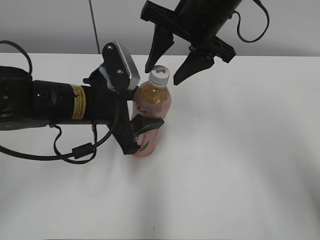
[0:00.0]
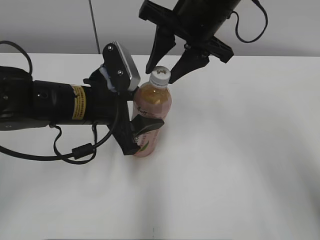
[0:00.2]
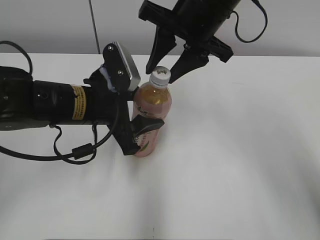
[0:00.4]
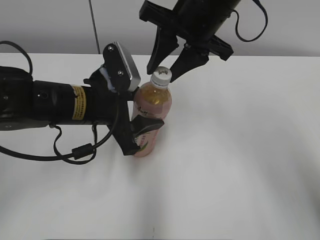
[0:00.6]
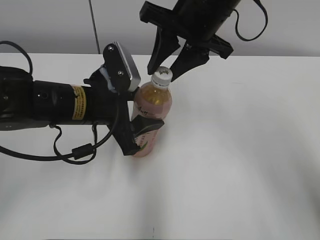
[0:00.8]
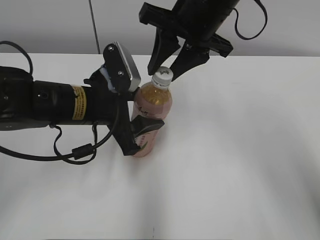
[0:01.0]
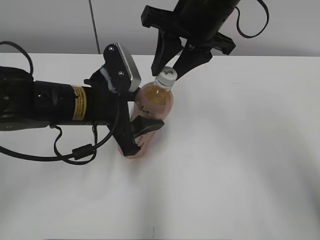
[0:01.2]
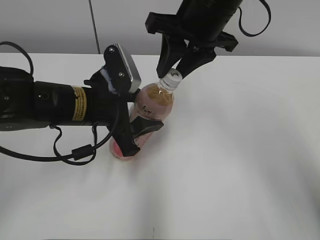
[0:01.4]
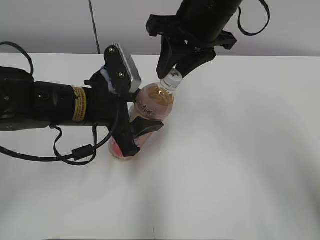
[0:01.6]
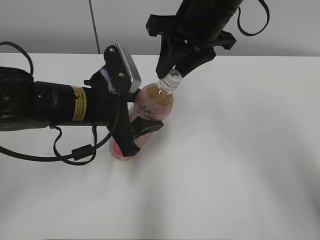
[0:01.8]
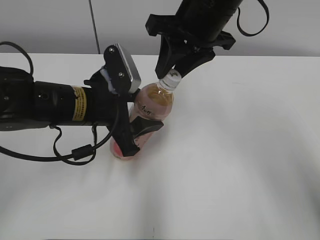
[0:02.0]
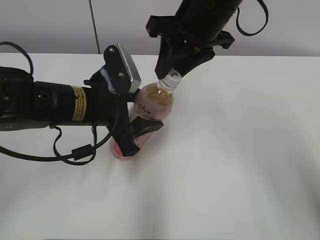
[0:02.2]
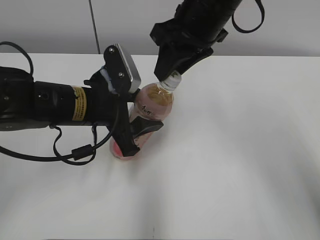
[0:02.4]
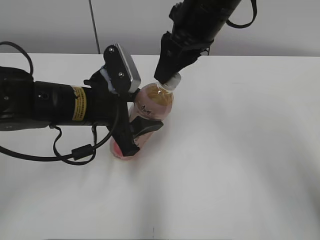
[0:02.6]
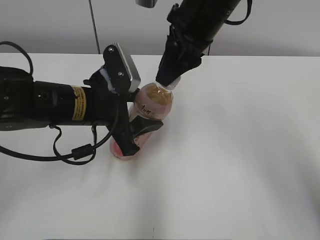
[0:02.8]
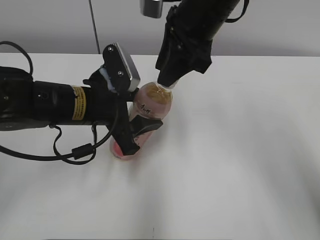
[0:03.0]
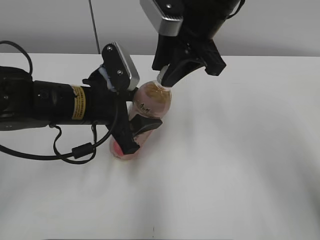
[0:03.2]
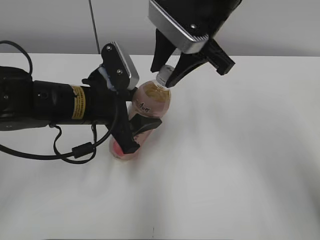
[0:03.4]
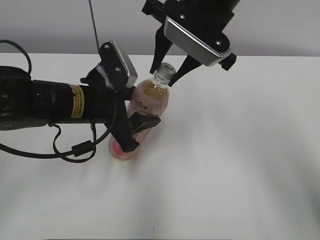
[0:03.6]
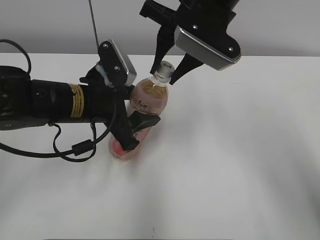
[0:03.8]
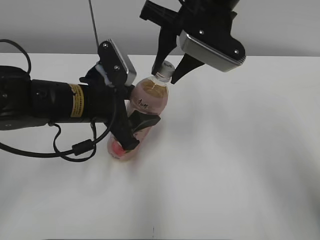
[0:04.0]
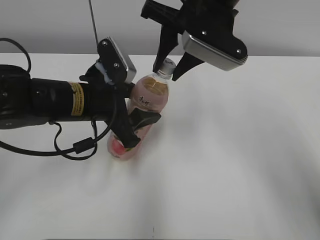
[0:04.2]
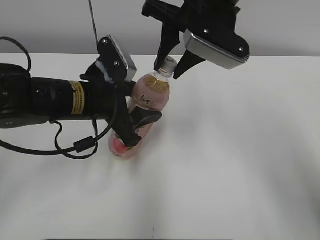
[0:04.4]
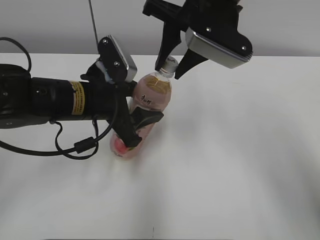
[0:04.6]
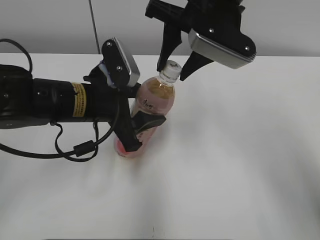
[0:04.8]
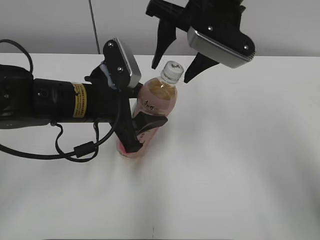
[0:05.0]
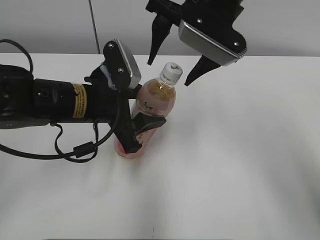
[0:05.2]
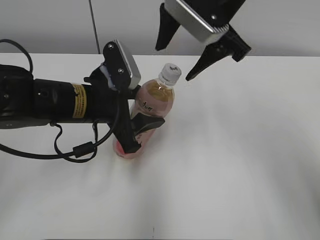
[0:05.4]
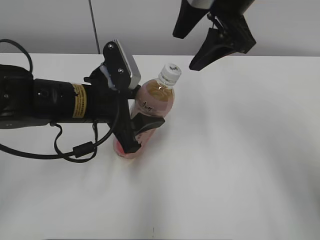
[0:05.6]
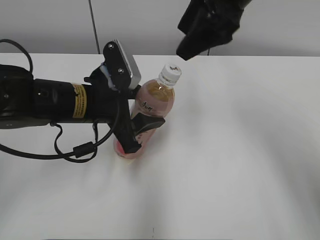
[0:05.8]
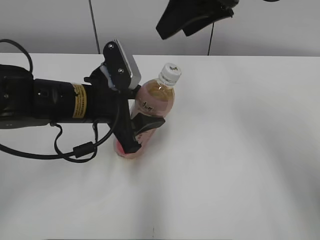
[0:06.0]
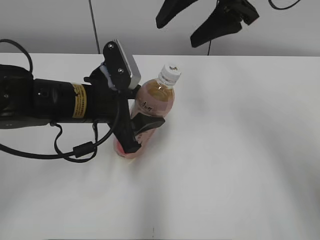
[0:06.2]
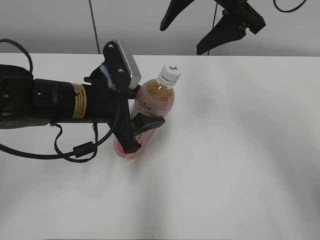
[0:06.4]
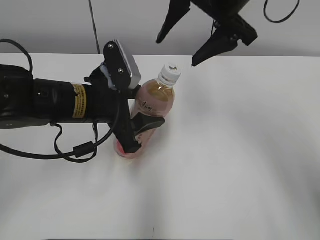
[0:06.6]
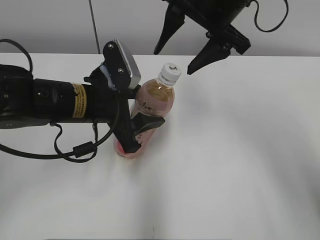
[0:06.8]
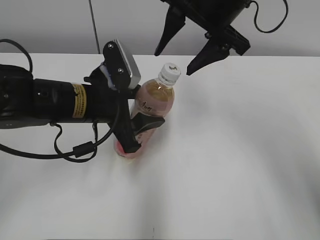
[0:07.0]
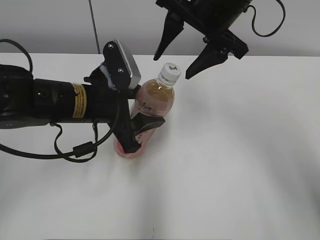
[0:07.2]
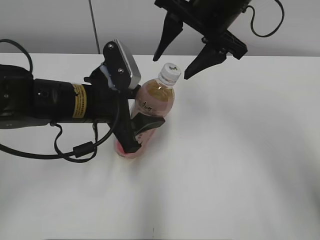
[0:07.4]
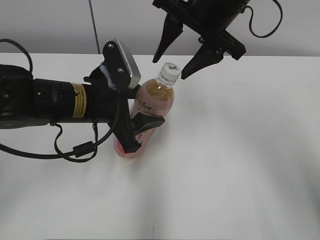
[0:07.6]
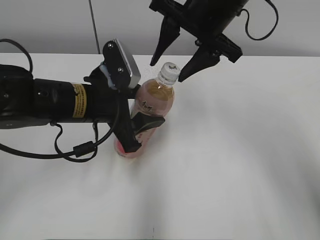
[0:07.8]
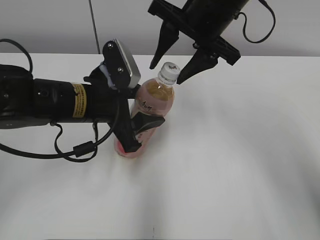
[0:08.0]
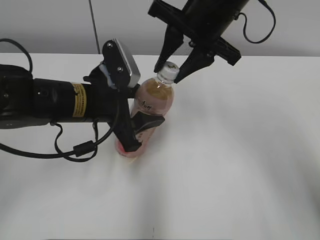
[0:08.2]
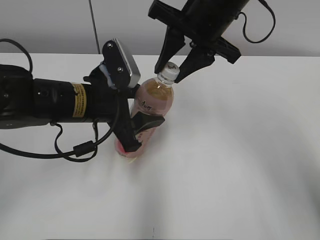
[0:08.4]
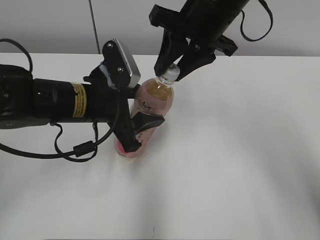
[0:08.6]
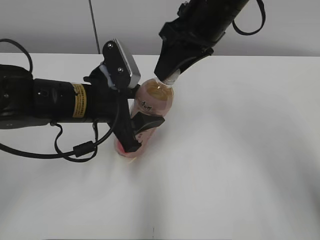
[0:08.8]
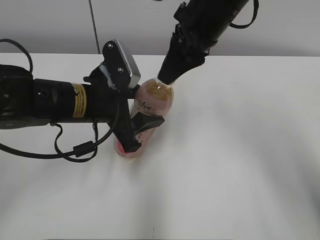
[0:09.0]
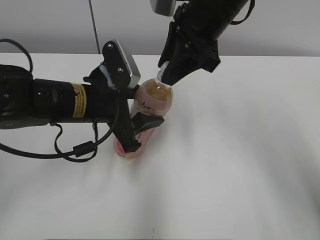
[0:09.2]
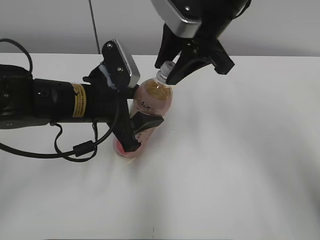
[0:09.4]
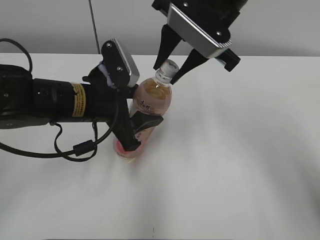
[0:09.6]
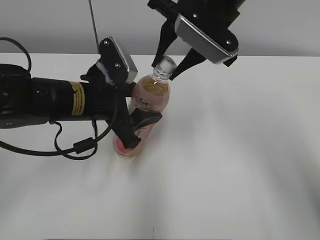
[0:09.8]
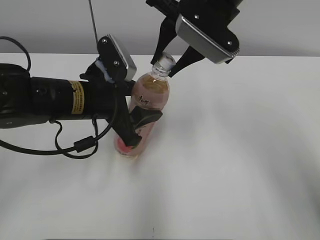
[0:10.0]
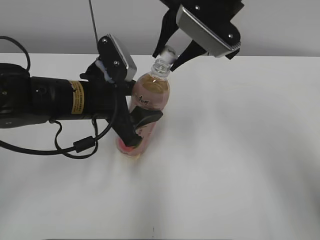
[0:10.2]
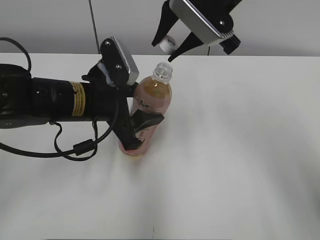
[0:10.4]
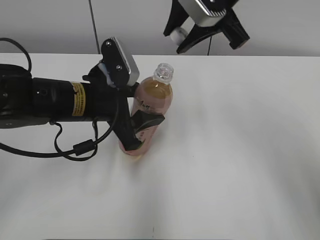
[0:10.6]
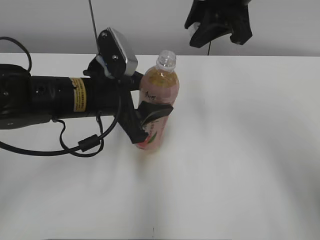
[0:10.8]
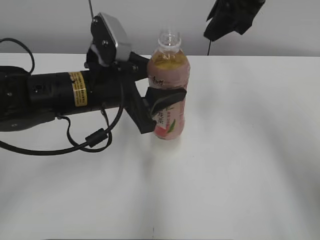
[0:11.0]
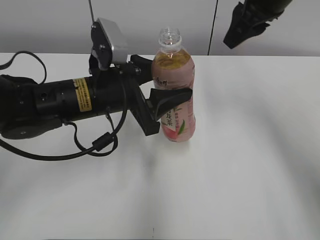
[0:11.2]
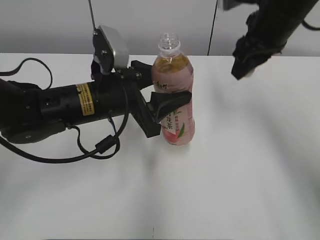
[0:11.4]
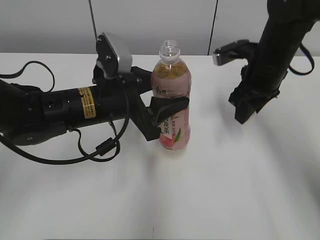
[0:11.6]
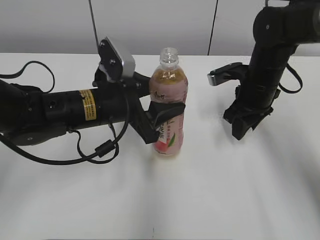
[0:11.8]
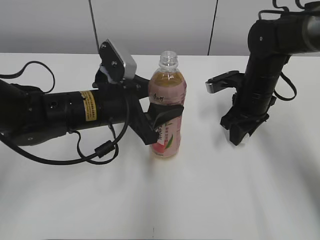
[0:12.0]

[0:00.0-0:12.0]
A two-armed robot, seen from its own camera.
Step, 0:00.0 to 0:10.0: Unscrew the bottle cap with the right gripper while holding the bottle with the left gripper.
0:00.0 to 0:01.6: The right gripper closes its fingers.
0:04.4 to 0:06.0: The right gripper ends up roughly 5 cm from where it was, and opens up.
0:06.0 to 0:07.6: The right gripper closes its fingers.
0:07.6 to 0:09.0: The right gripper closes.
0:10.4 to 0:12.0: The right gripper travels downward and to the right by roughly 20 cm.

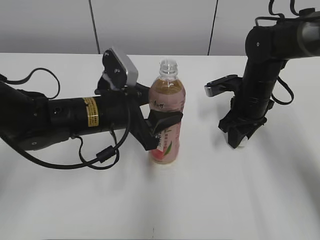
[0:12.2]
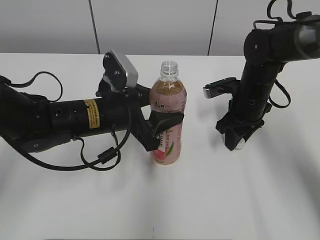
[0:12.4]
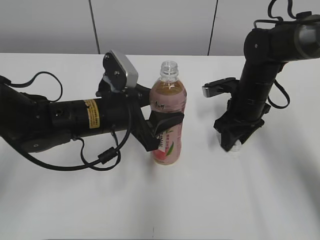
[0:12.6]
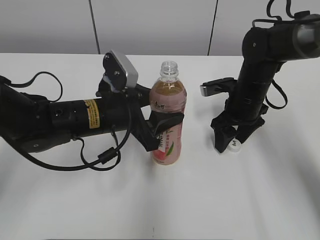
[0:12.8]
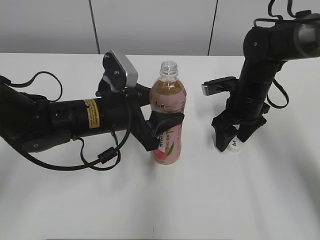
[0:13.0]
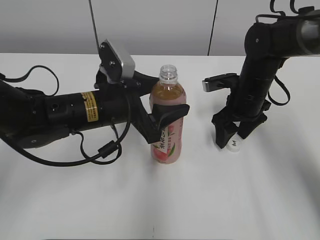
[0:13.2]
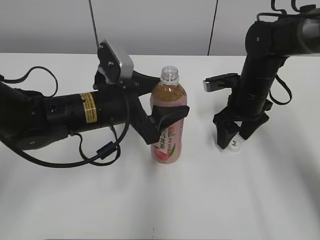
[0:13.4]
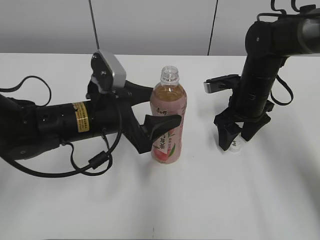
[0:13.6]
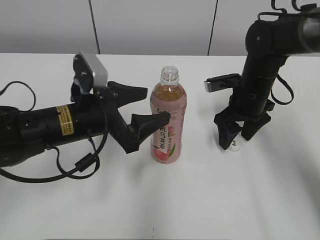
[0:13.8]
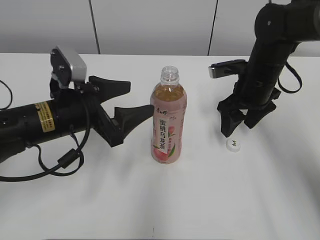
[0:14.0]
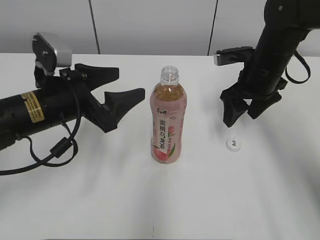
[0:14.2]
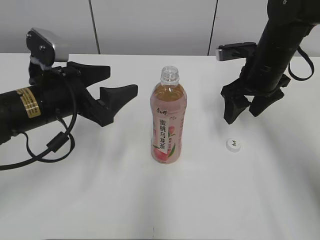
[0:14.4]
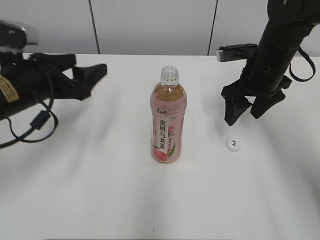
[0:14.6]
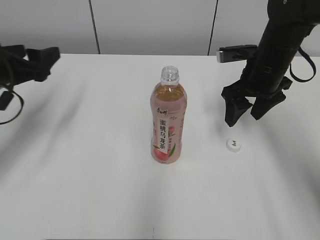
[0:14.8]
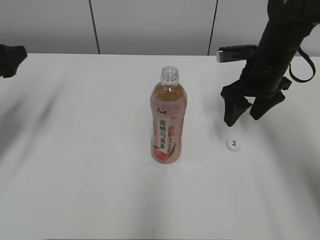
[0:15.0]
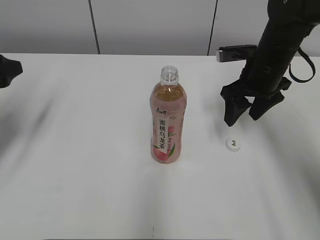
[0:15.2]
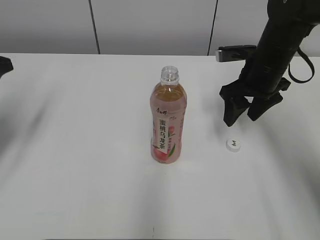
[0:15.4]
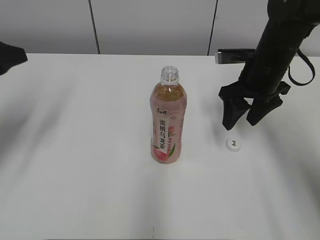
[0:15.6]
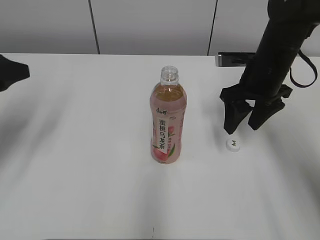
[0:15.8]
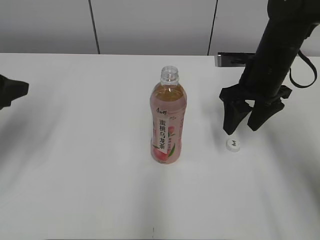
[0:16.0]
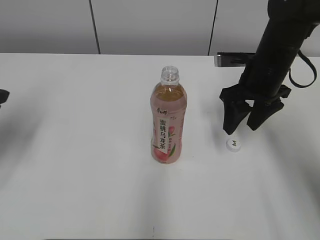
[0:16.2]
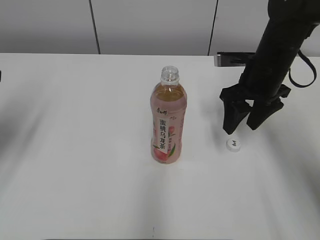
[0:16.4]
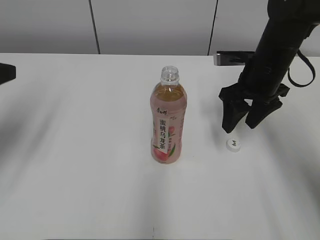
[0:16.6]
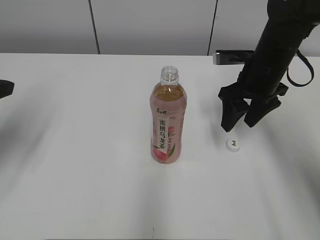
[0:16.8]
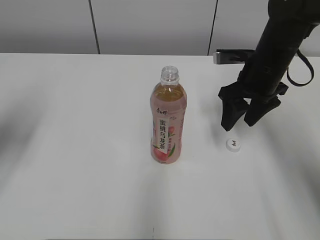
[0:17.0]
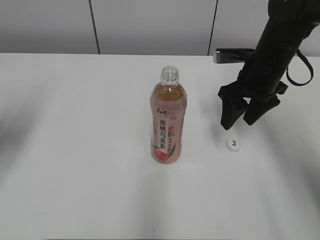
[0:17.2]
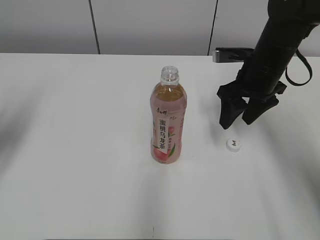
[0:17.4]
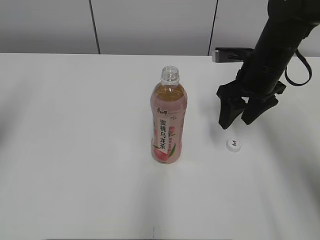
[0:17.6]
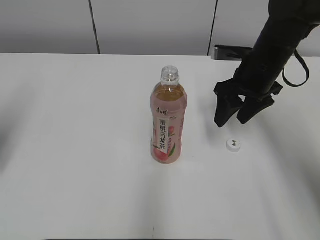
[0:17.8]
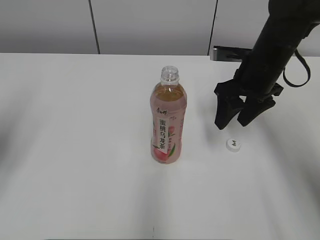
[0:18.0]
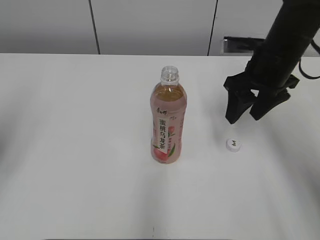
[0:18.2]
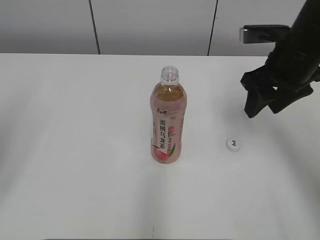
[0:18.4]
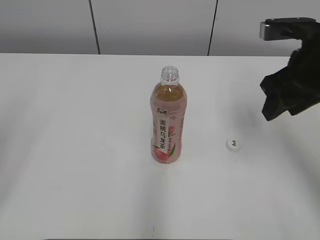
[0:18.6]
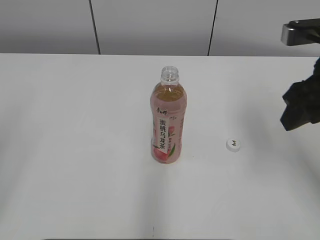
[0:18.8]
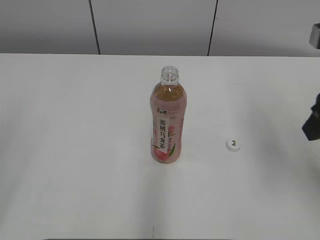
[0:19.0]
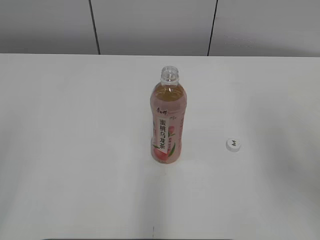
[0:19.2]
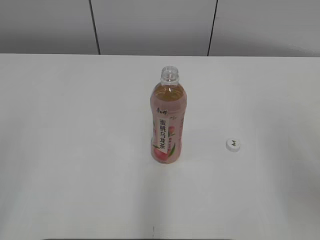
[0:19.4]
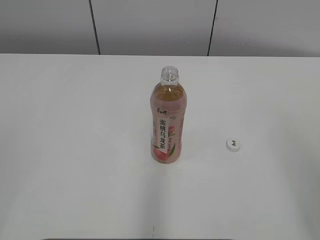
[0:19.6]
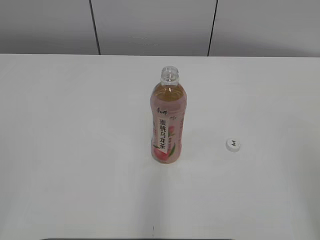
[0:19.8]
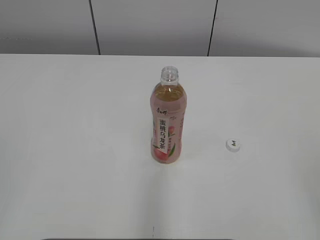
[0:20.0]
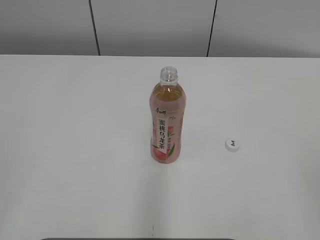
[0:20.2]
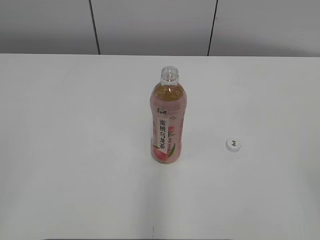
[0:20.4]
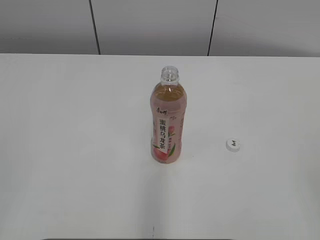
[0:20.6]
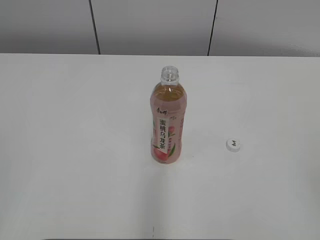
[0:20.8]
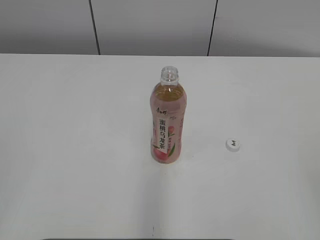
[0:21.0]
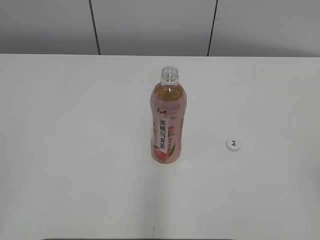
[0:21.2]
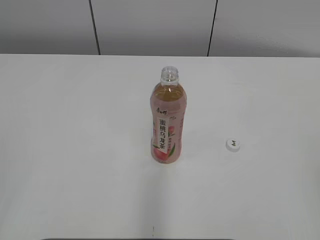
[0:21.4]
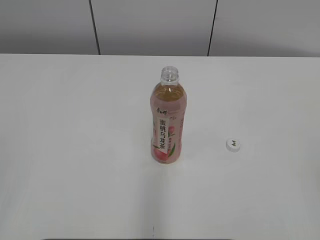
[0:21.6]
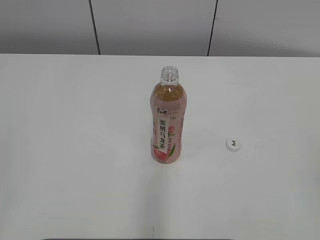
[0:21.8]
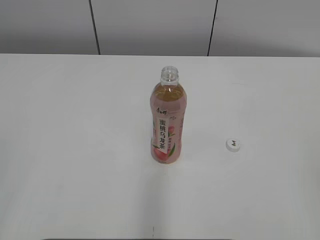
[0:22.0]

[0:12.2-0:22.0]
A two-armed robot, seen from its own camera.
Step, 0:13.0 to 0:13.4: Place the bottle on the table with the left gripper.
0:12.2 to 0:13.6: The left gripper opens up; the right gripper opens its fingers.
0:13.6 to 0:15.0: The left gripper is displaced to the left by roughly 20 cm; the right gripper travels upward by about 5 cm.
0:15.0 to 0:16.4: The left gripper moves about 5 cm.
0:17.8 to 0:19.2: The right gripper shifts roughly 20 cm backward and upward. Meanwhile the left gripper shifts some 15 cm backward.
0:19.2 to 0:20.6: The right gripper moves backward, approximately 20 cm.
